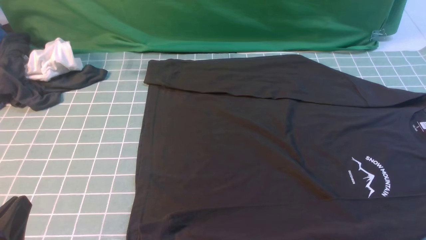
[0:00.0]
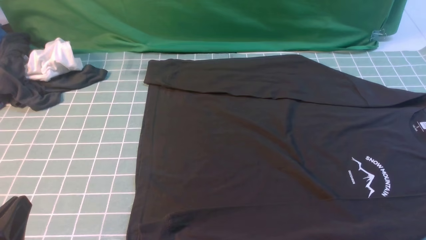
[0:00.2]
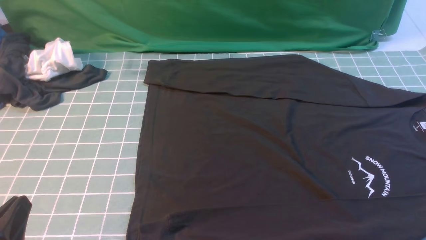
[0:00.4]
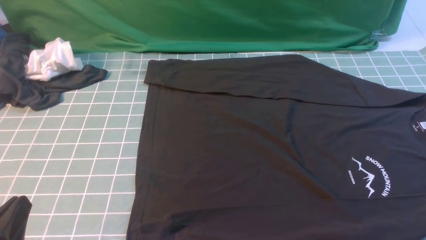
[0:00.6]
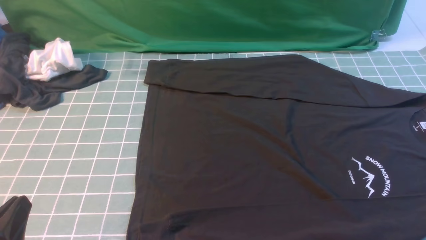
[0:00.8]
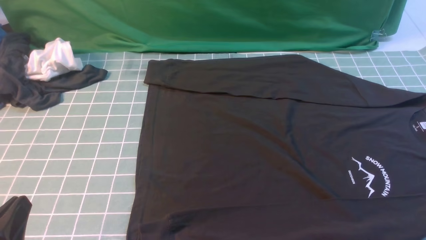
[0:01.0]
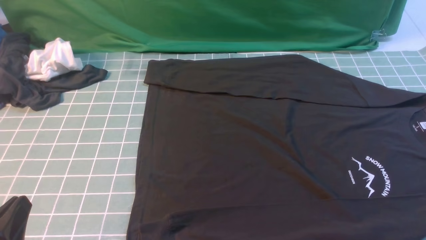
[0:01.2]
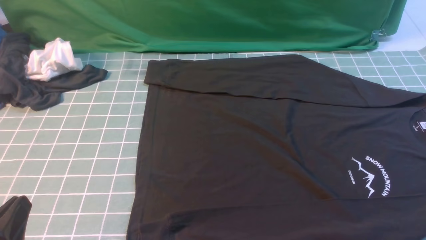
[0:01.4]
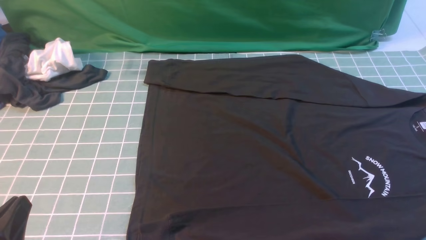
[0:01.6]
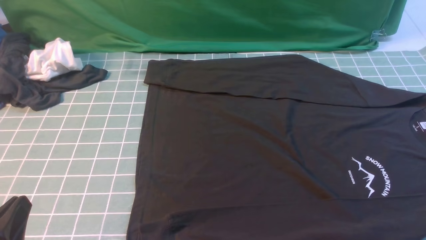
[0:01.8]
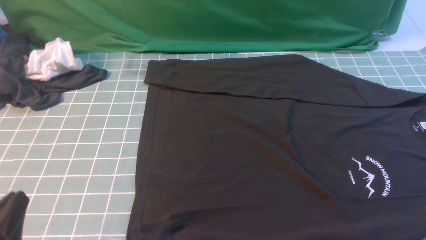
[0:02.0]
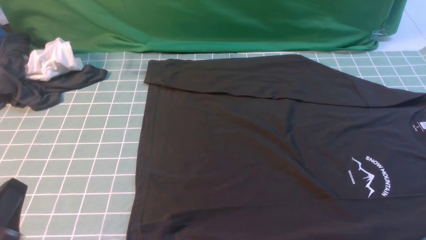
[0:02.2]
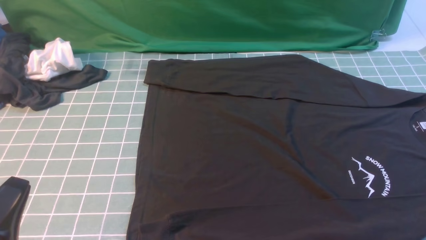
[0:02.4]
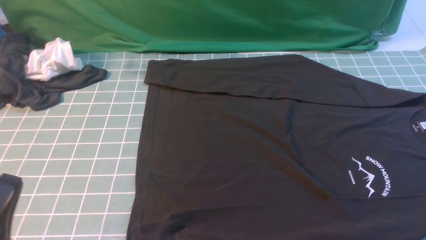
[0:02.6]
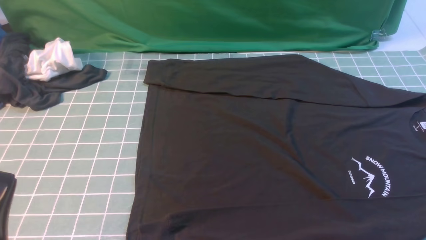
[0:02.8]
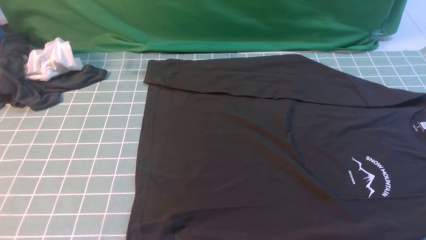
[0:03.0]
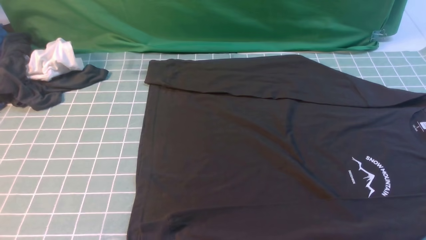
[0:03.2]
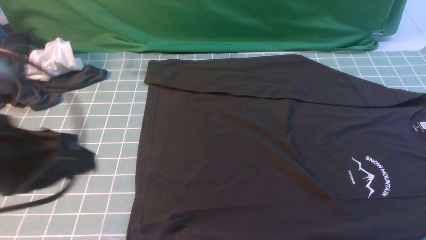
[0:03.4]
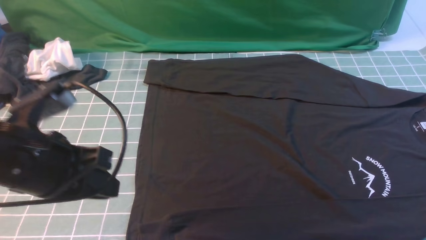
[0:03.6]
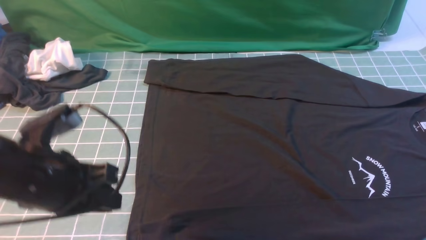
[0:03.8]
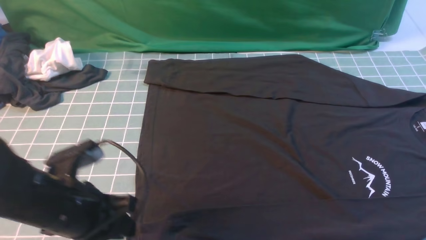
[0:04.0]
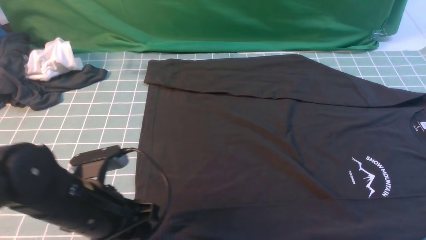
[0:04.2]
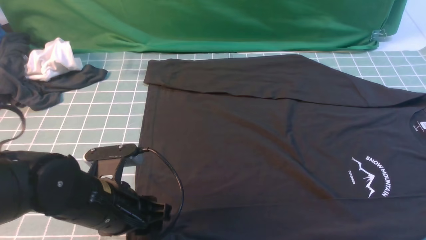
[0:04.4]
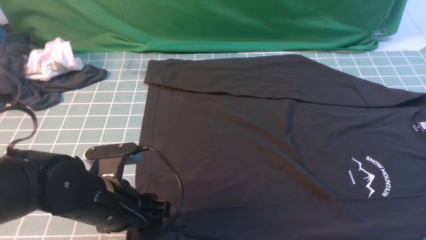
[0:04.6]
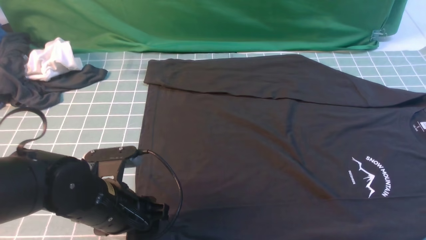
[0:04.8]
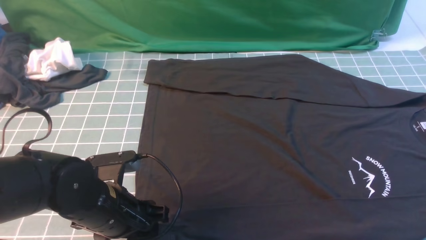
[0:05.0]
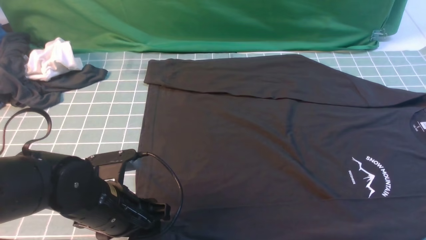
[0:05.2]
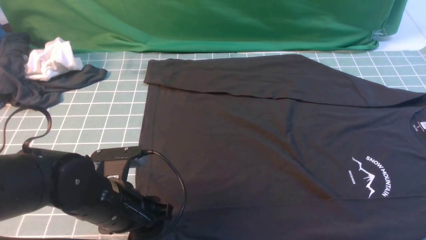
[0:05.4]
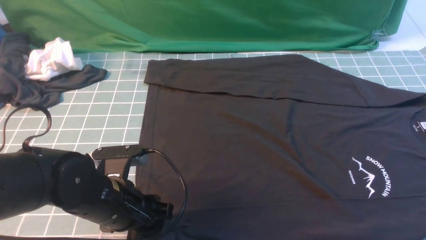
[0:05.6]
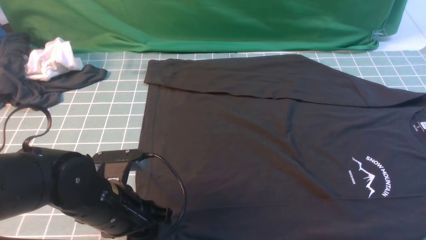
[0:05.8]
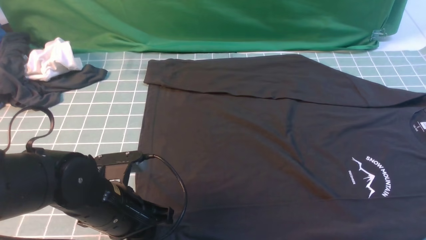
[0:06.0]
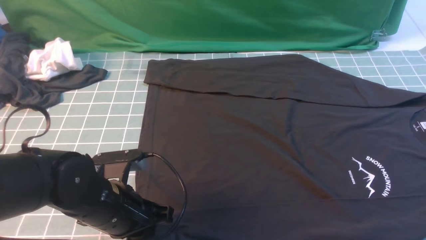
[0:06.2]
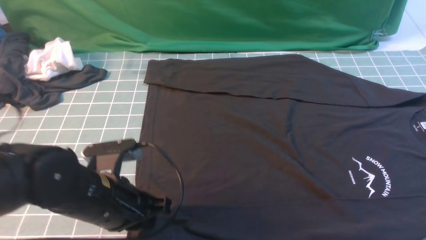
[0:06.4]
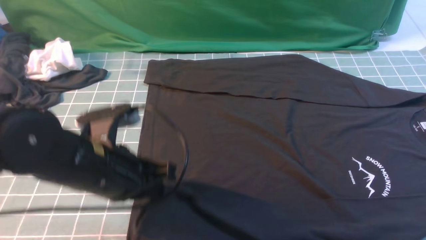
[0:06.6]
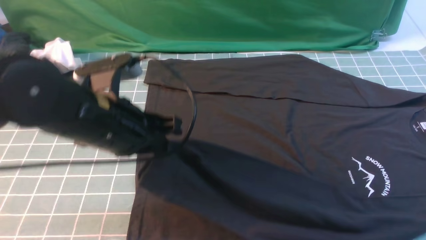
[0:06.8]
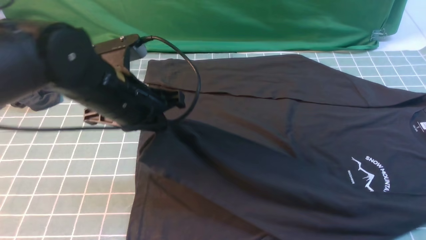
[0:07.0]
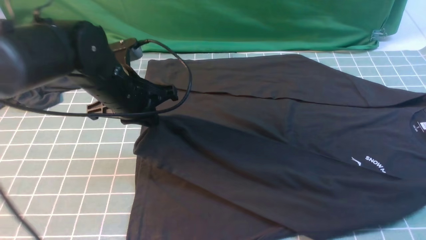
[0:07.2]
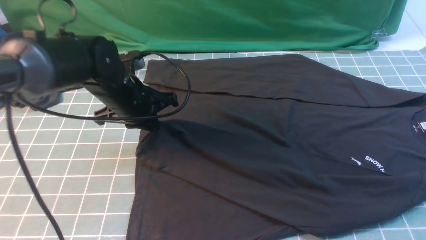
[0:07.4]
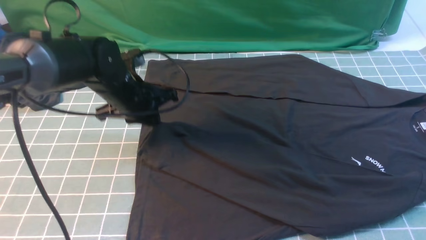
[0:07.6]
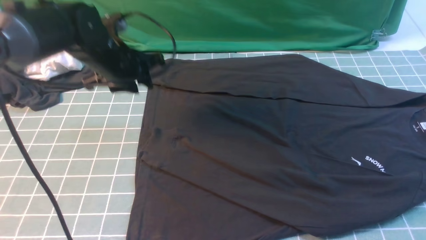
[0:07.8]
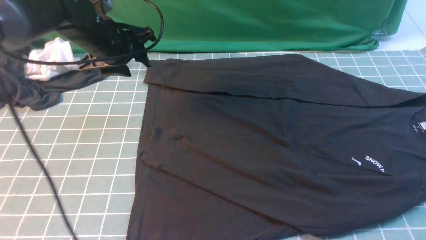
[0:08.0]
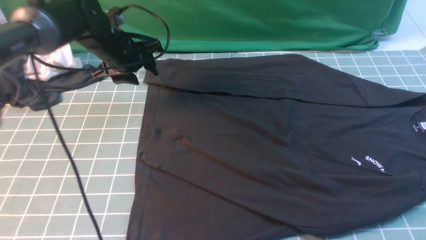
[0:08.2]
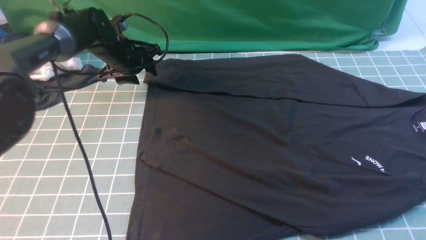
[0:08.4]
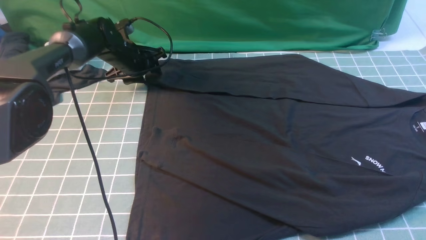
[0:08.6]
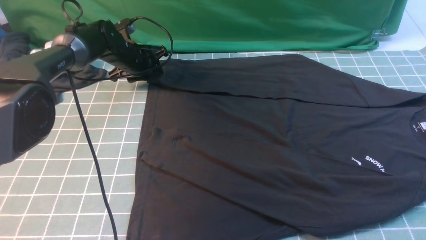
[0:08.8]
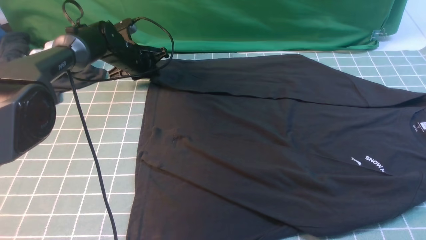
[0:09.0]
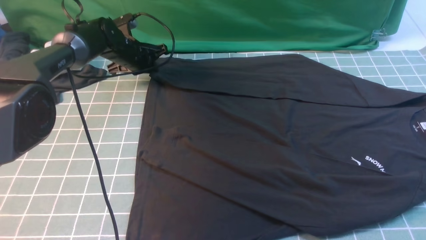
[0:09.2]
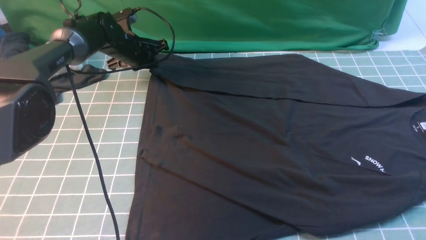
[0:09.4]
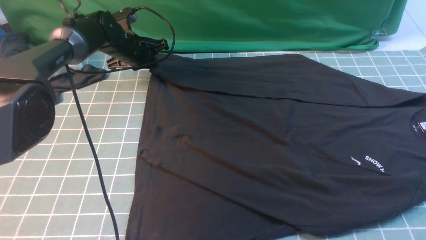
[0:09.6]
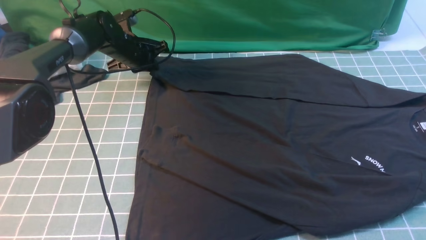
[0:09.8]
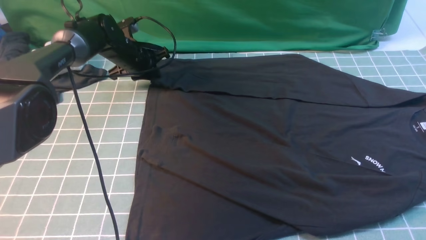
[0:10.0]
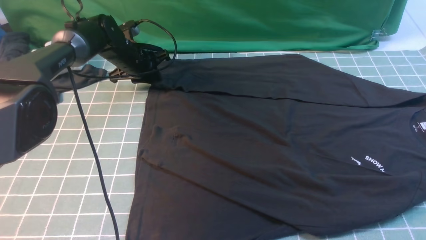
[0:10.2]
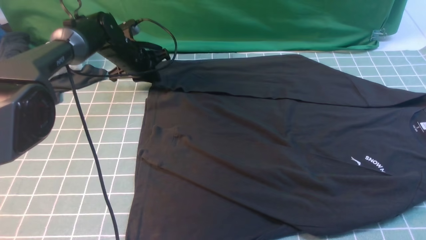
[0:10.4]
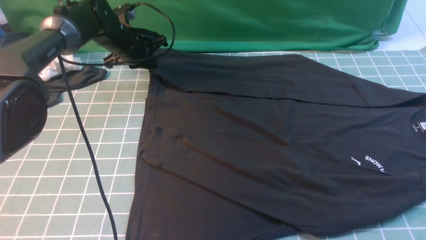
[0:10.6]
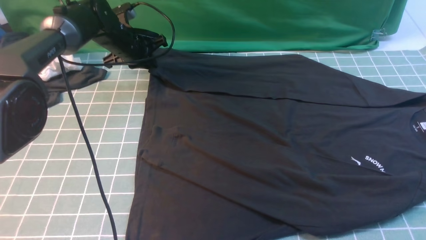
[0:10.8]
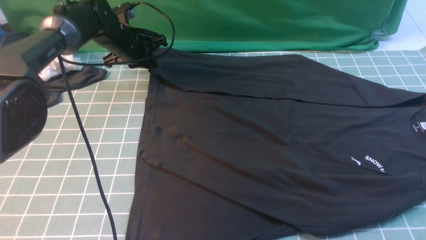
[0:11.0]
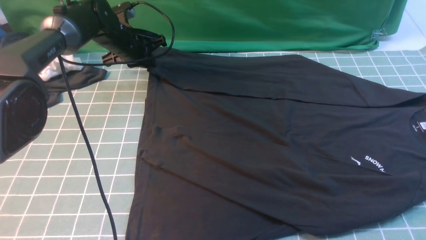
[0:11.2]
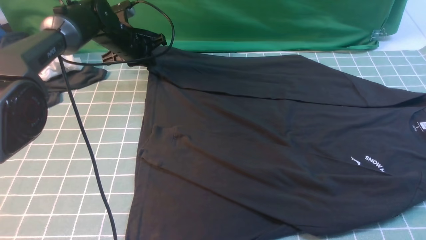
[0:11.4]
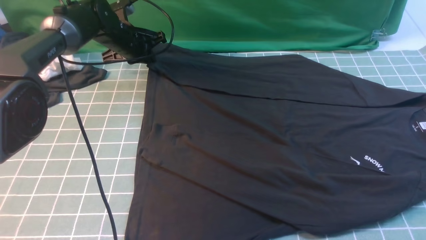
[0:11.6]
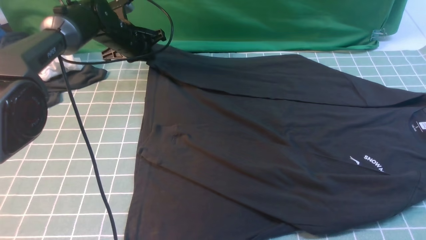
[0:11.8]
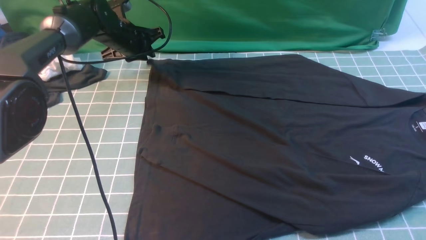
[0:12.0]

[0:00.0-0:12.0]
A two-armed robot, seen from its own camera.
Step, 0:00.0 to 0:06.2: use the left arm to clamp the cuff closest to it.
Step, 0:06.4 to 0:07.8: use the left arm to drag and place the cuff at the centered position on the left edge of the fabric.
0:00.0 to 0:01.6: Both grippers stay put.
0:01.6 to 0:03.0: The left gripper goes about 10 cm upward.
0:03.0 to 0:04.4: The left gripper is displaced forward, downward and to the right by approximately 20 cm, and opens. The right gripper is displaced forward and upward by some 10 cm.
0:04.4 to 0:06.0: The left gripper closes.
0:06.0 to 0:07.6: The left gripper heads forward, covering some 20 cm.
0:07.6 to 0:09.0: The left gripper shifts about 15 cm forward and downward, and opens, then closes again.
0:09.0 to 0:12.0: The grippers make only small movements.

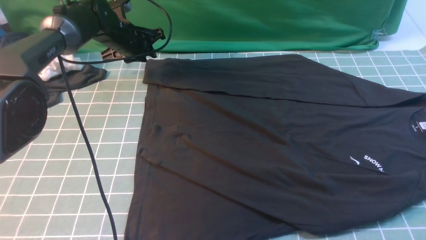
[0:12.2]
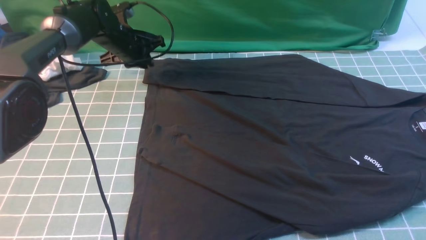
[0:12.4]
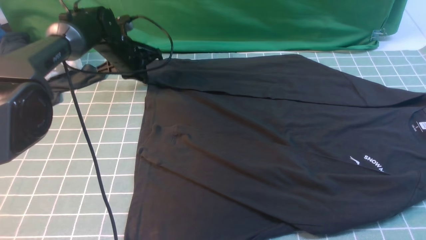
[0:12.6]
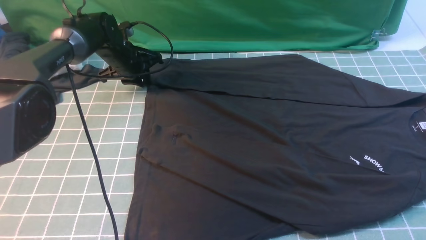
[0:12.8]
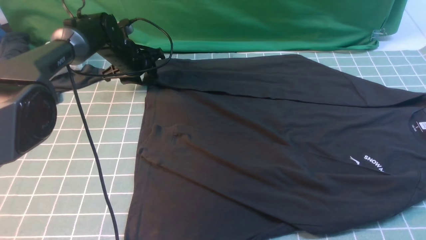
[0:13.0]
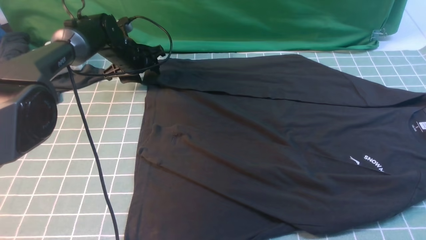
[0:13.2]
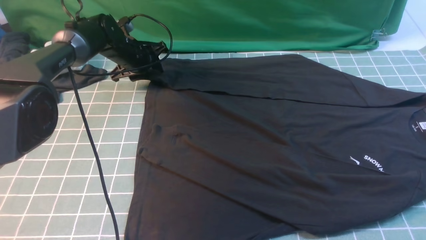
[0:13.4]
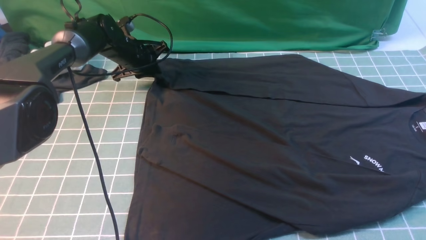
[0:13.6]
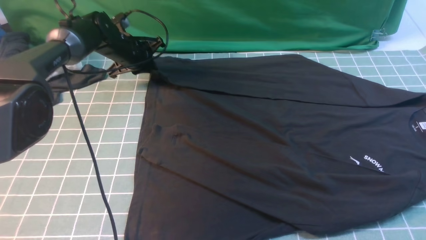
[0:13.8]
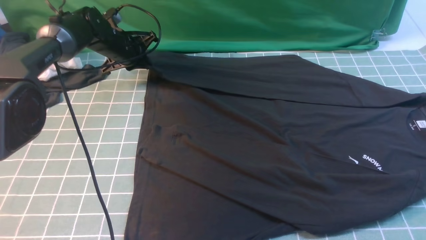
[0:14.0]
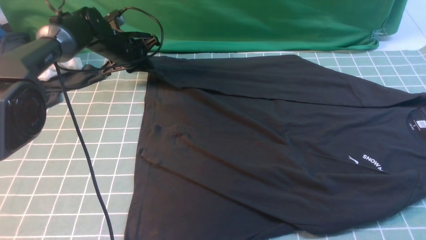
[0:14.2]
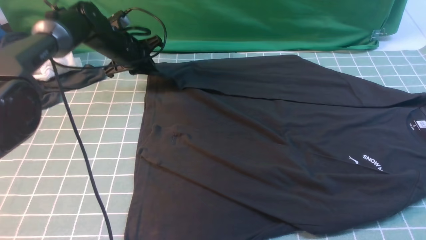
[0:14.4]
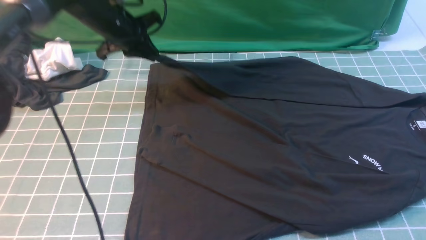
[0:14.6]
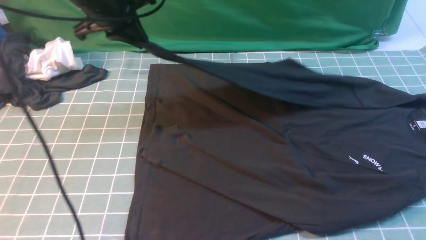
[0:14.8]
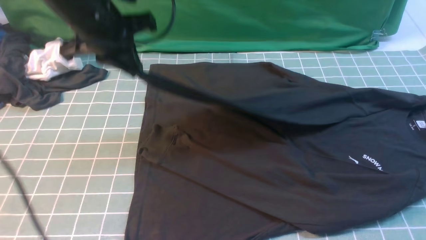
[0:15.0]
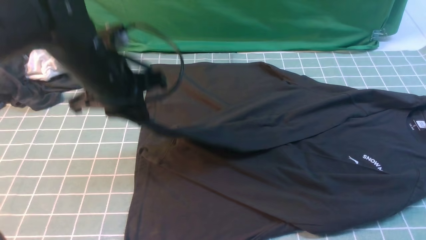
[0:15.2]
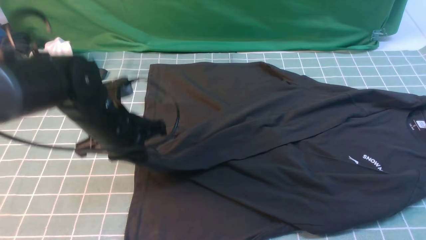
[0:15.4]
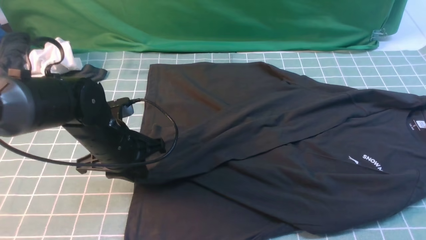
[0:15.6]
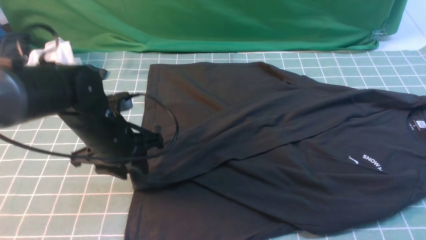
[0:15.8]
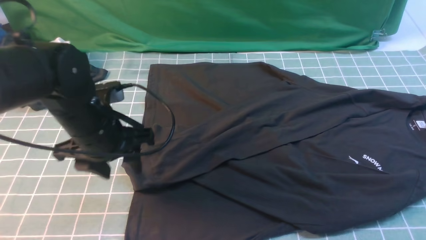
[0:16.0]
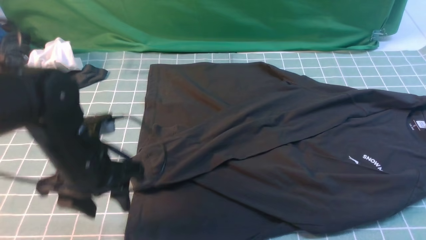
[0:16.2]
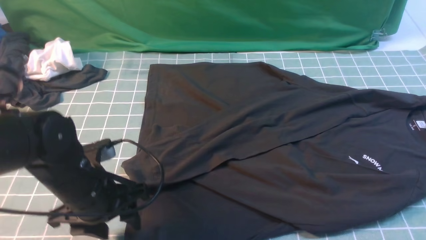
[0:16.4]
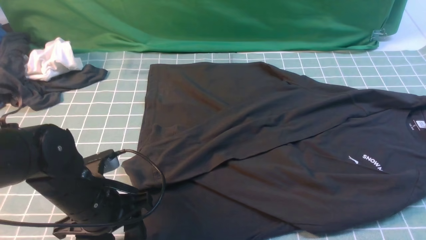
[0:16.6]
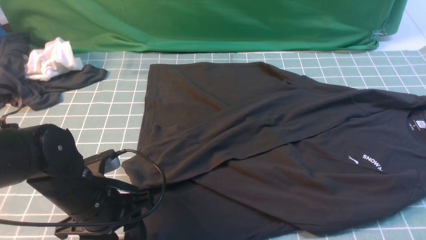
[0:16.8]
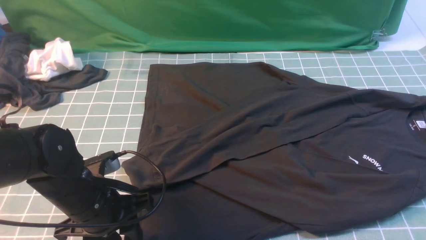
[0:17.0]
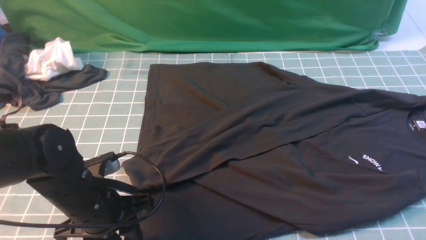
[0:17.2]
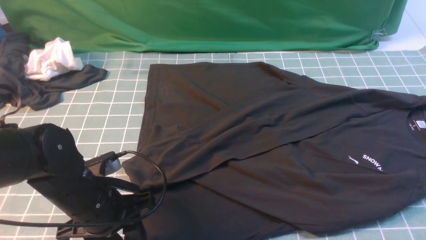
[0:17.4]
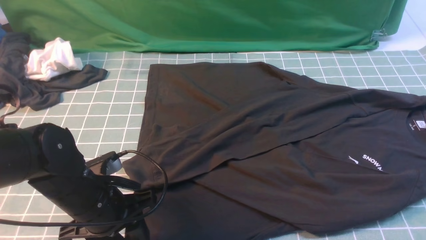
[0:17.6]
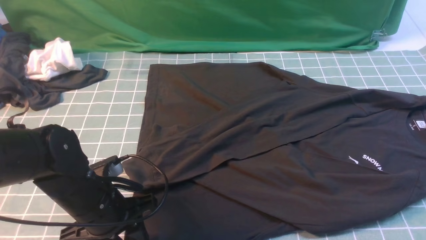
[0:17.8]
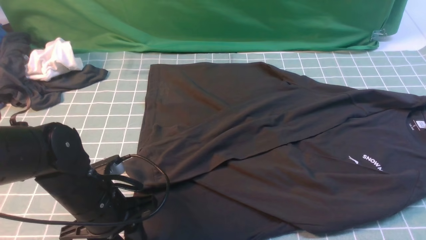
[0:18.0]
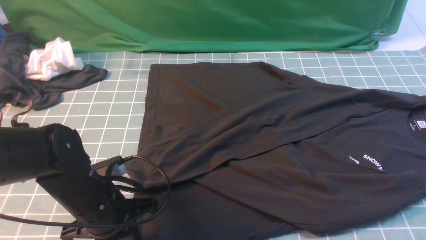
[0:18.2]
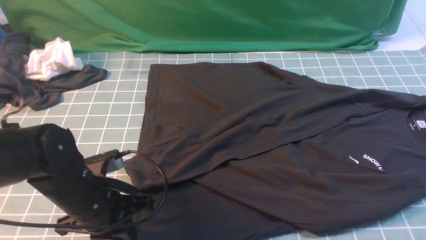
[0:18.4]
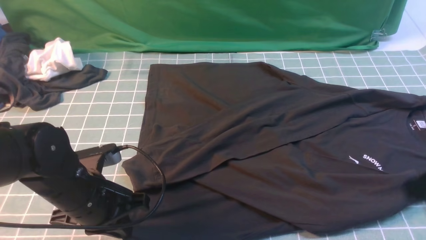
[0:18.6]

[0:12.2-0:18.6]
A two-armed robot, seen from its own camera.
Step, 0:12.2 to 0:14.2: use the left arm to clamp the cuff farthest from it.
Step, 0:14.4 to 0:15.8: use the left arm to drag and drop the cuff onto the cuff closest to the left arm.
0:12.2 to 0:13.8: The left gripper opens, then closes again.
0:13.8 to 0:15.4: The right gripper closes up. The left gripper is displaced backward by about 25 cm.
0:15.4 to 0:17.0: The left gripper moves backward, approximately 10 cm, and opens up.
0:17.0 to 0:18.6: The left gripper closes up.
